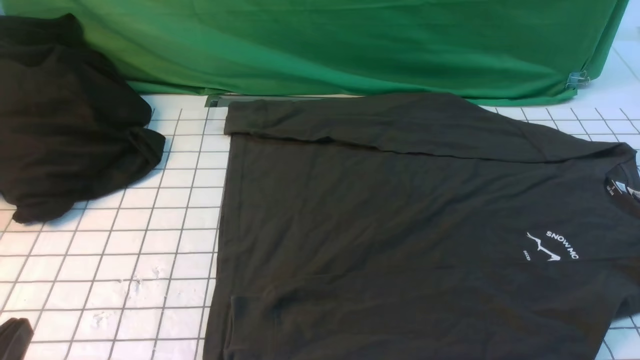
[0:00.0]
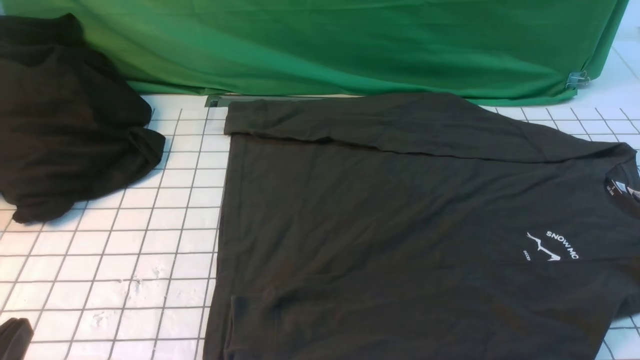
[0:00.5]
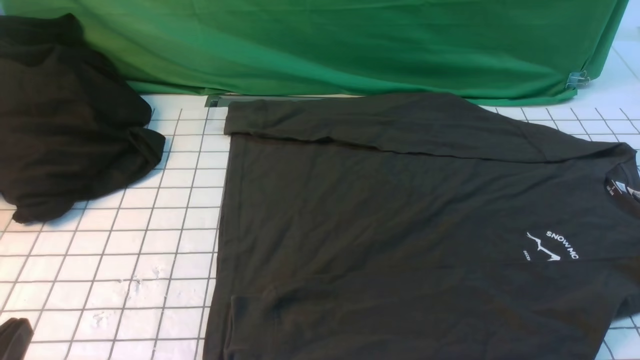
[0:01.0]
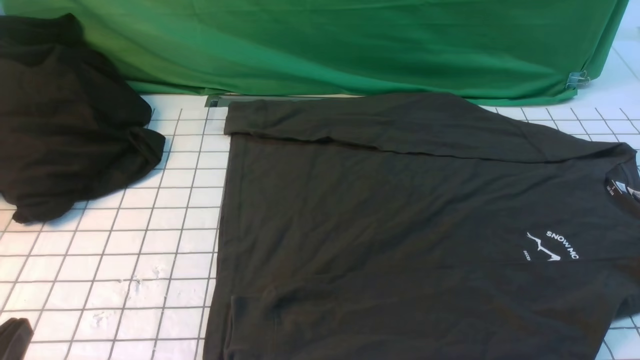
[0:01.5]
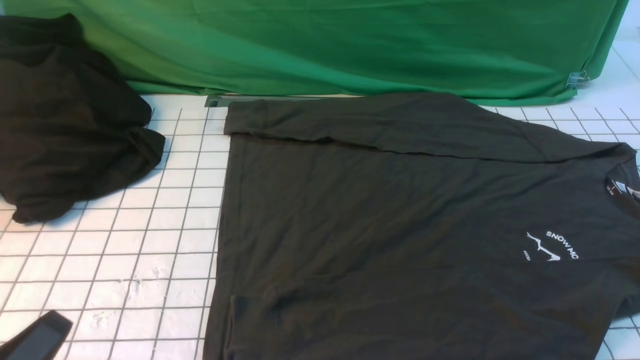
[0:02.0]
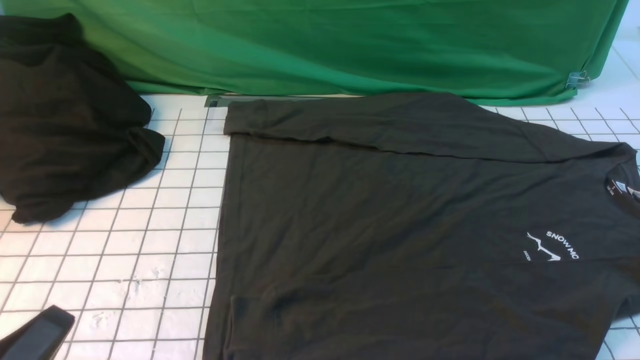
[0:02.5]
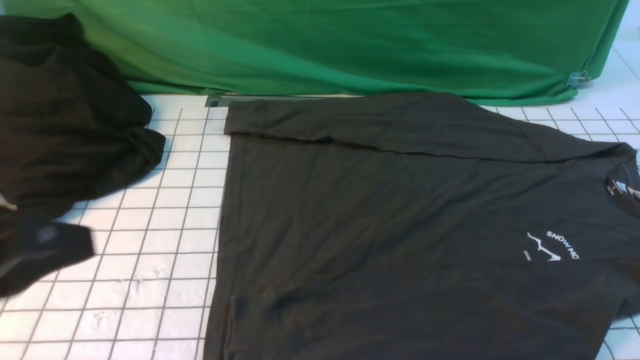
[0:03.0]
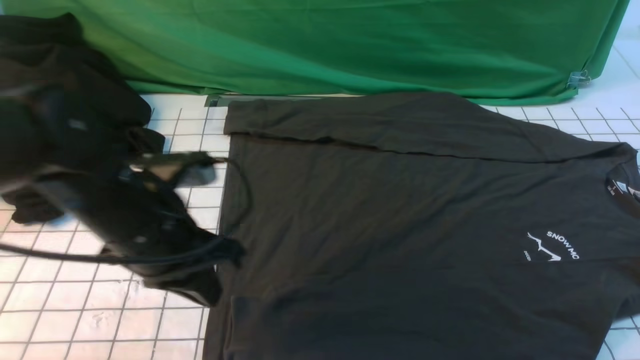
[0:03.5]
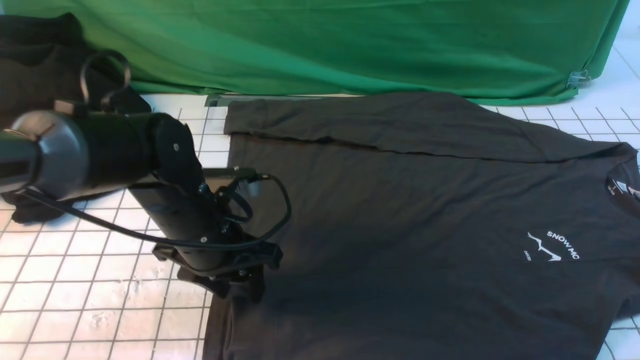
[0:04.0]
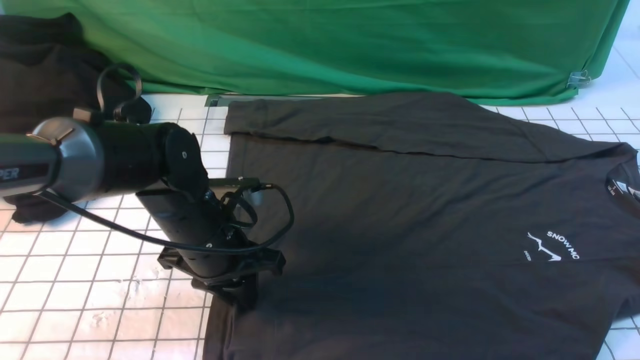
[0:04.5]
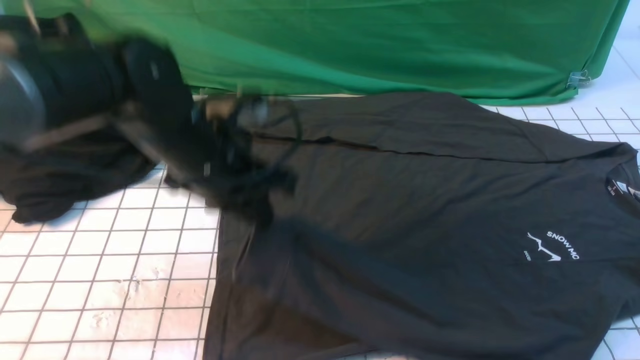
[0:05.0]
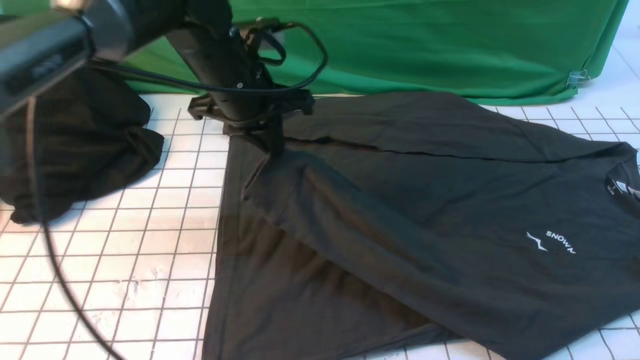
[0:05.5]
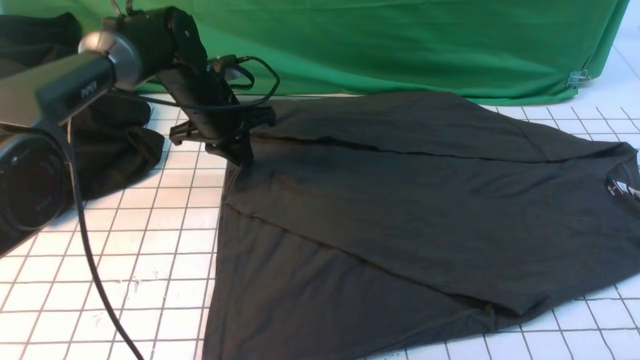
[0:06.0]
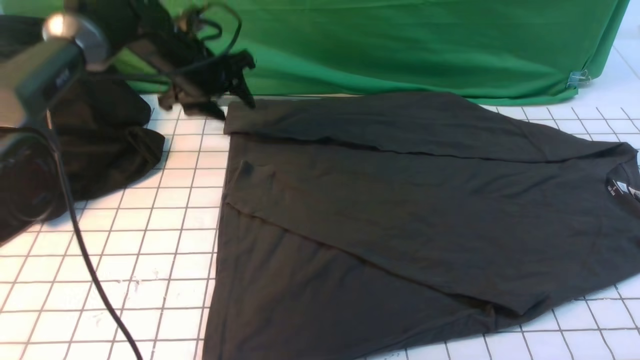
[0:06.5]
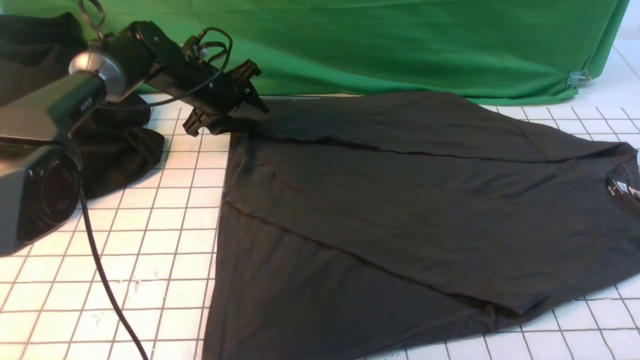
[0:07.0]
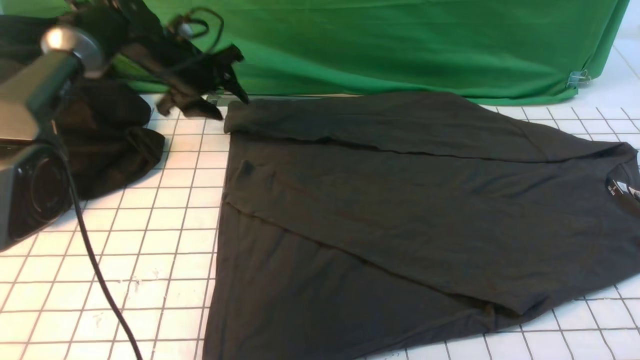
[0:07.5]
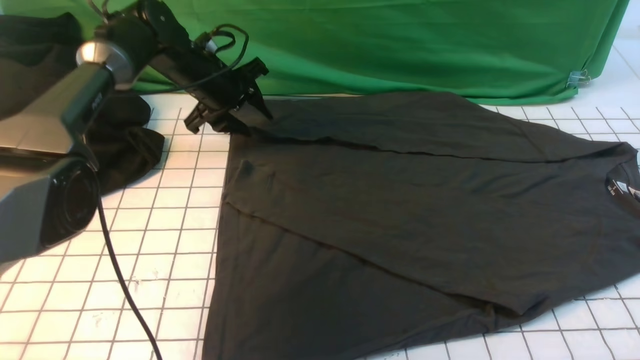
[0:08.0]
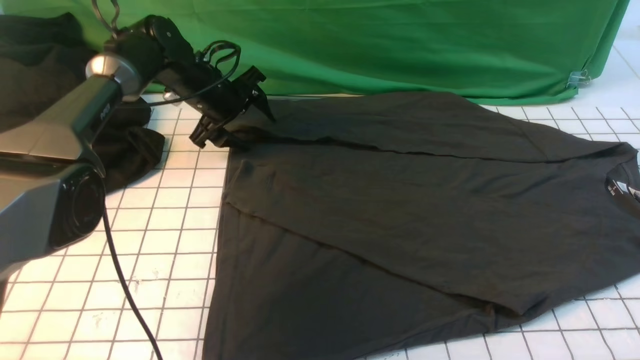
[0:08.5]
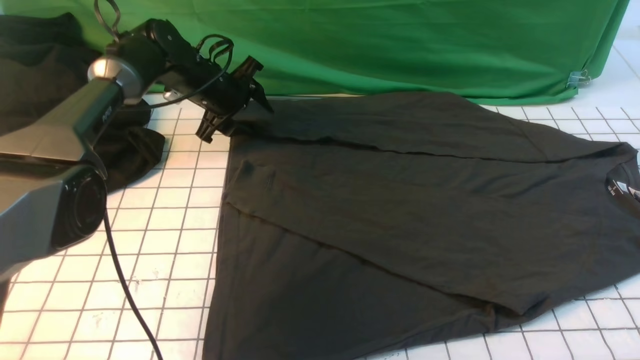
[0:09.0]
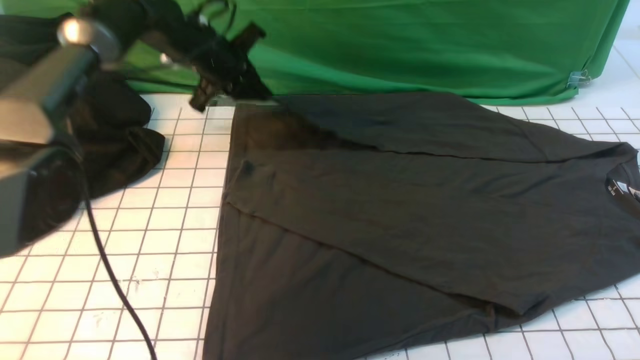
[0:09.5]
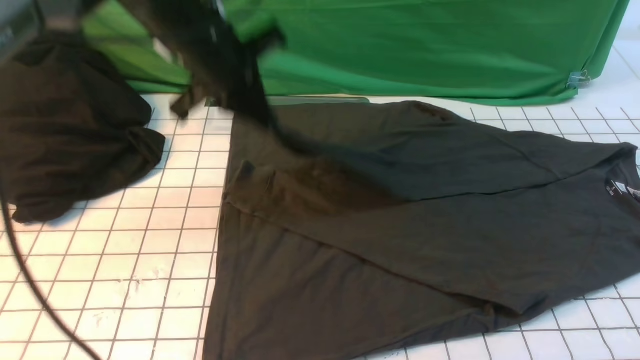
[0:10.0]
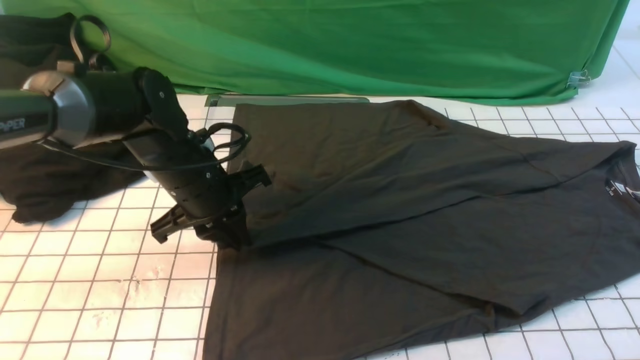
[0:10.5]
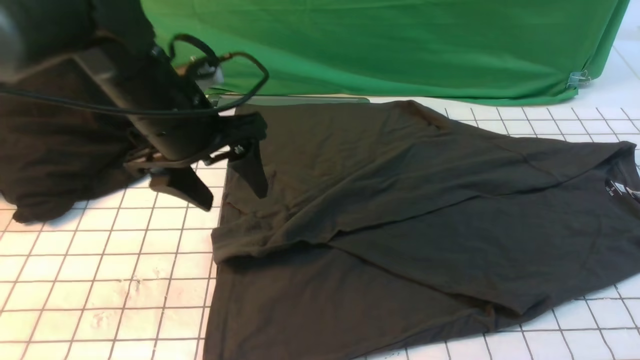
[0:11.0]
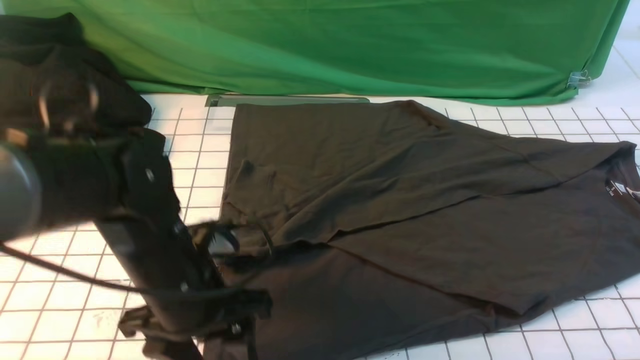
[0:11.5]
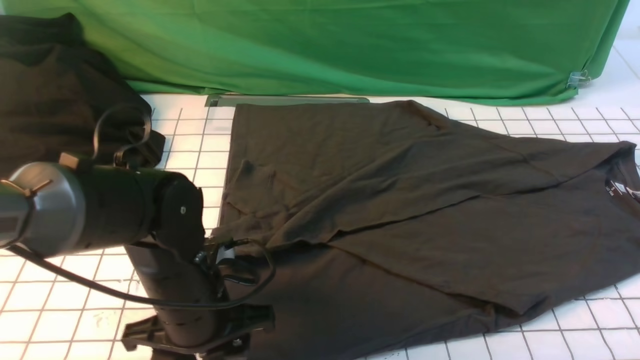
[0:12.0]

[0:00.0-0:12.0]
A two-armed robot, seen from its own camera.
Step, 0:00.0 to 0:04.5: use the left arm to clamp the cuff closest to it.
Step, 0:05.0 to 0:06.0: use the left arm to drag and place the cuff at the centered position on the left edge of the fabric.
Step, 0:06.5 to 0:09.0: use the left arm to clamp the cuff farthest from it.
Step, 0:09.5 to 0:10.5: use the left arm to drag and drop the cuff onto the cuff closest to the left arm.
0:02.0 to 0:04.0: The left gripper is displaced forward and to the right by about 30 cm, and opens its fingers. The right gripper goes roughly 15 cm upward and forward.
0:04.0 to 0:06.0: The left gripper heads forward, covering approximately 20 cm, and closes.
0:06.0 to 0:08.0: The left gripper is displaced forward by some 5 cm, and opens.
0:08.0 to 0:10.0: The left gripper goes about 15 cm backward and upward, and closes its fingers.
0:10.0 to 0:12.0: The left gripper moves backward and downward, approximately 20 cm, and opens up.

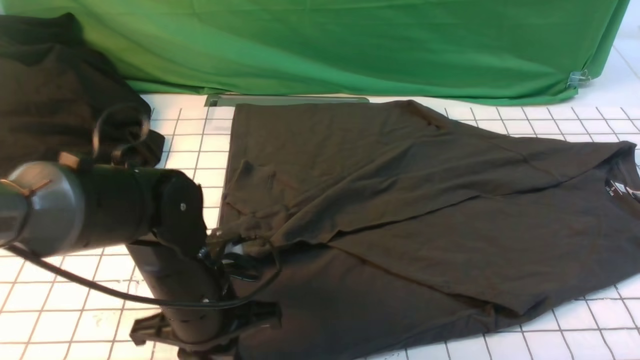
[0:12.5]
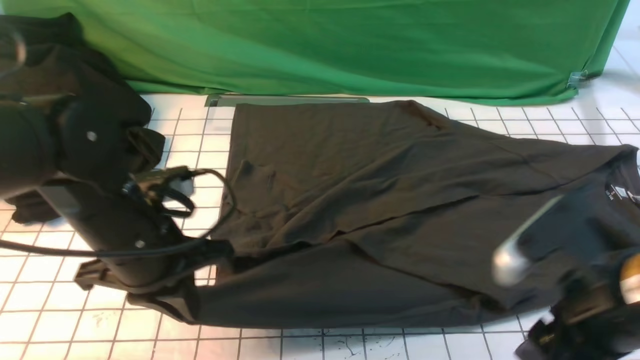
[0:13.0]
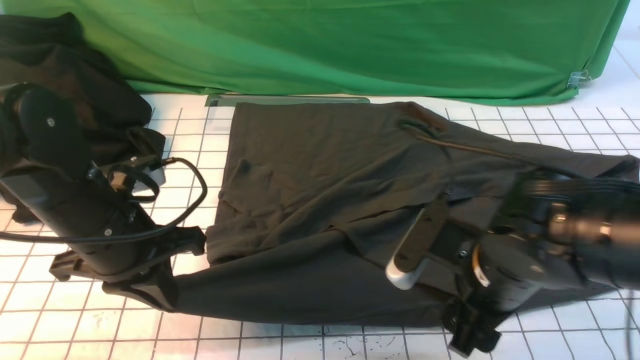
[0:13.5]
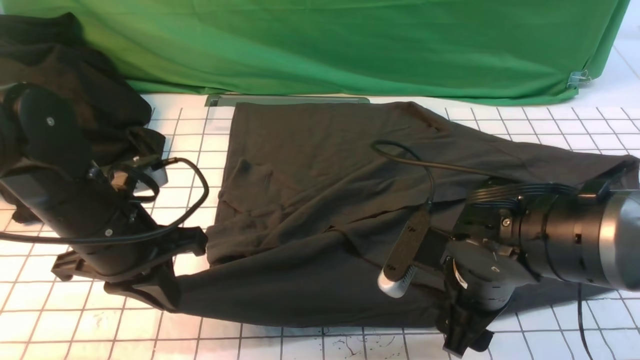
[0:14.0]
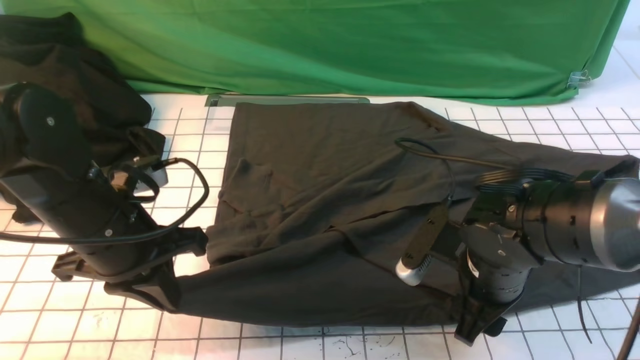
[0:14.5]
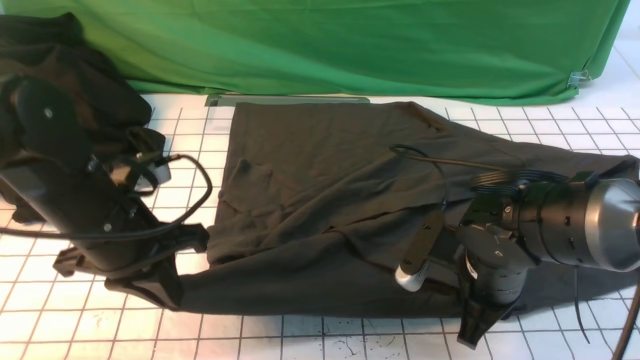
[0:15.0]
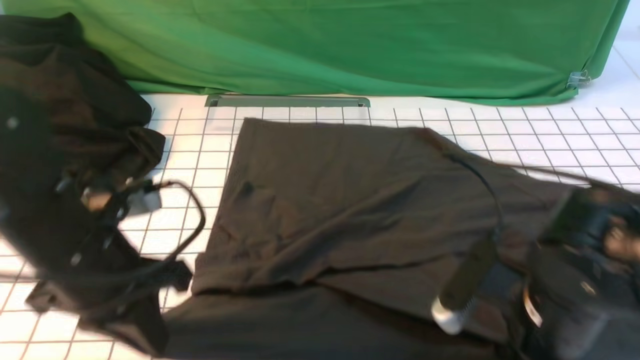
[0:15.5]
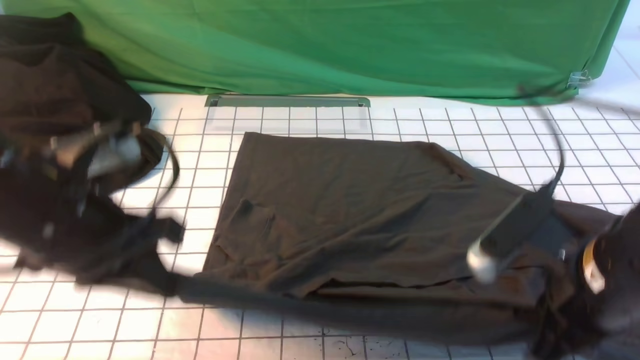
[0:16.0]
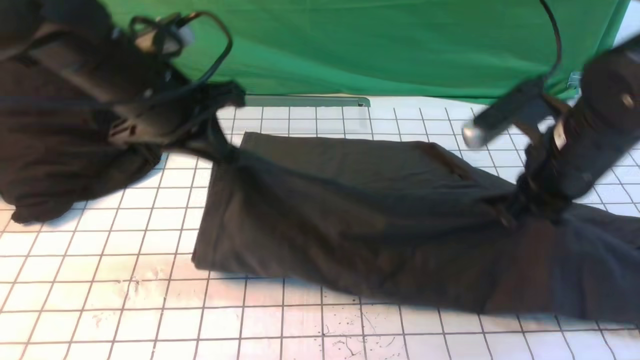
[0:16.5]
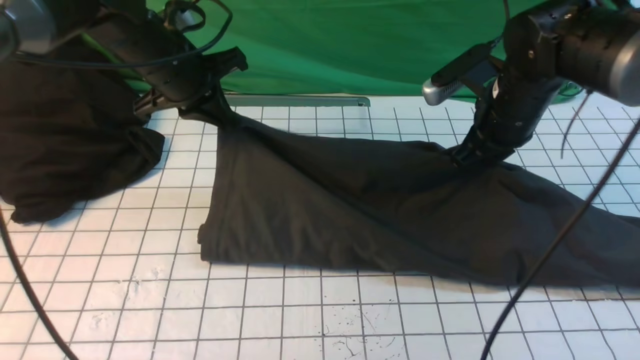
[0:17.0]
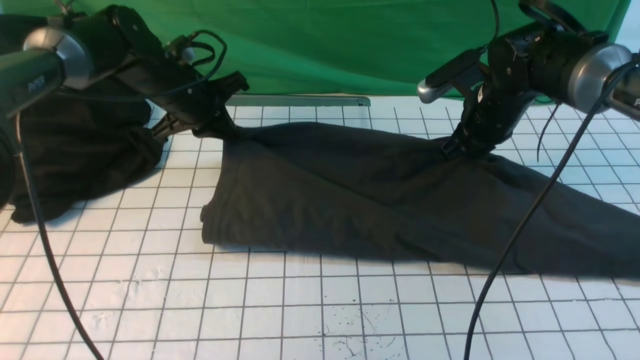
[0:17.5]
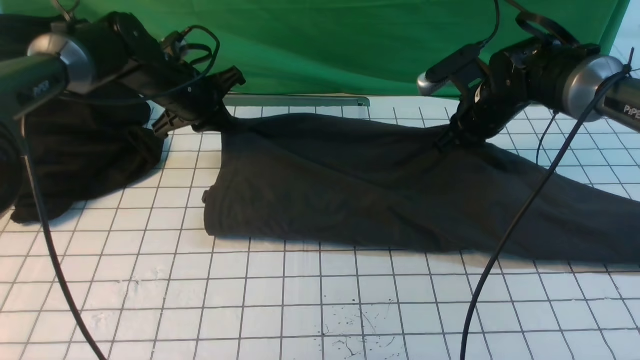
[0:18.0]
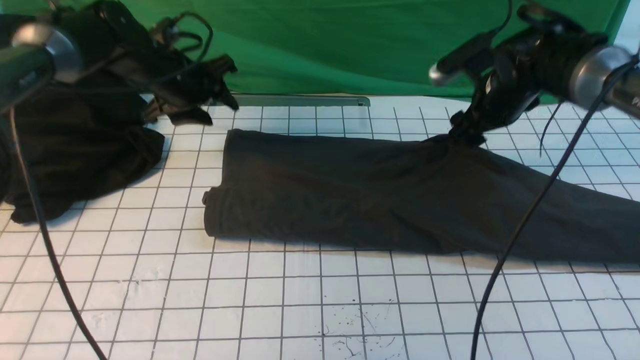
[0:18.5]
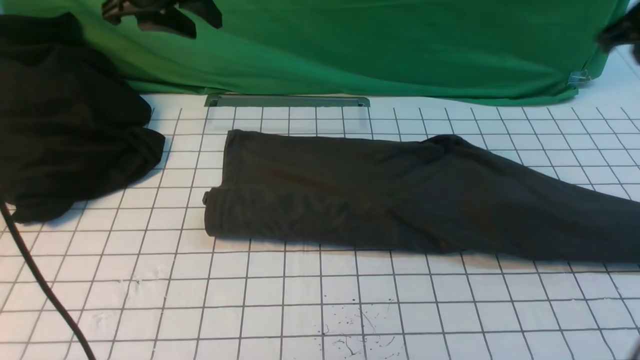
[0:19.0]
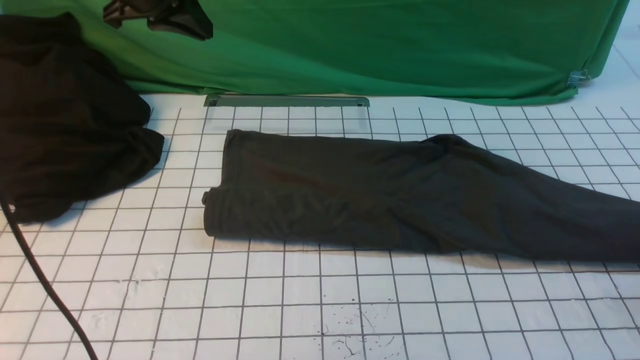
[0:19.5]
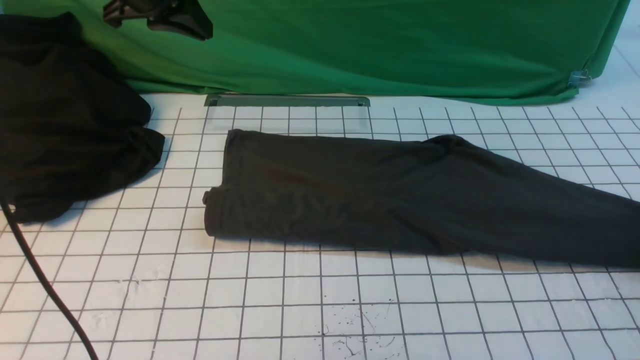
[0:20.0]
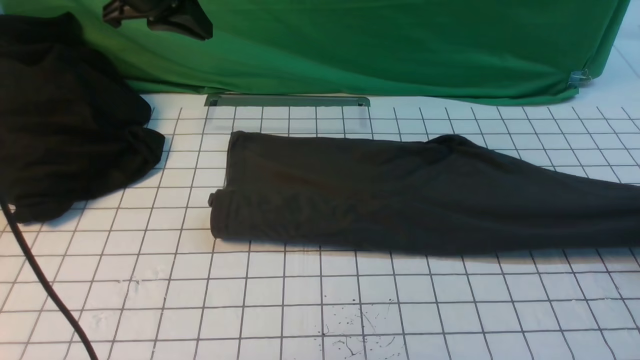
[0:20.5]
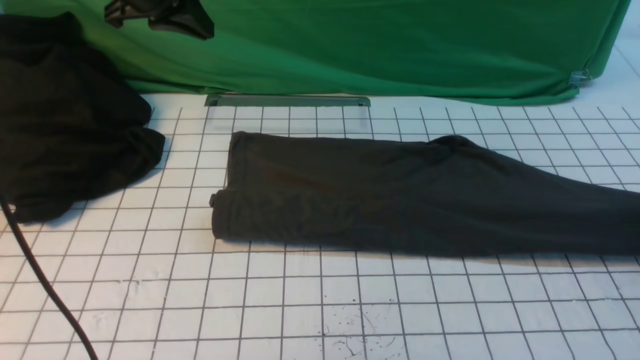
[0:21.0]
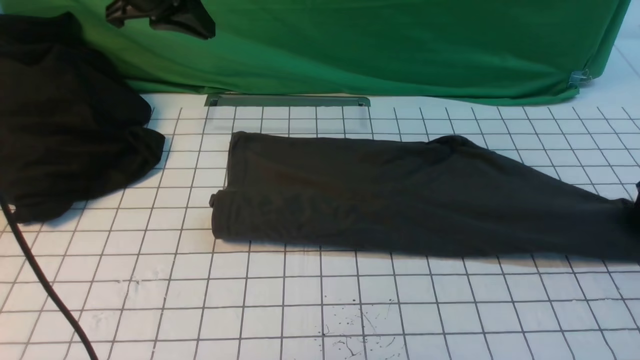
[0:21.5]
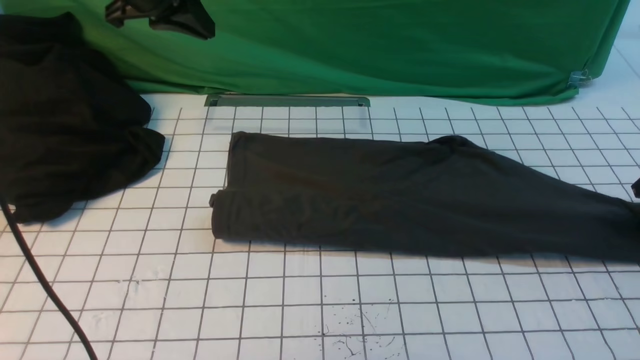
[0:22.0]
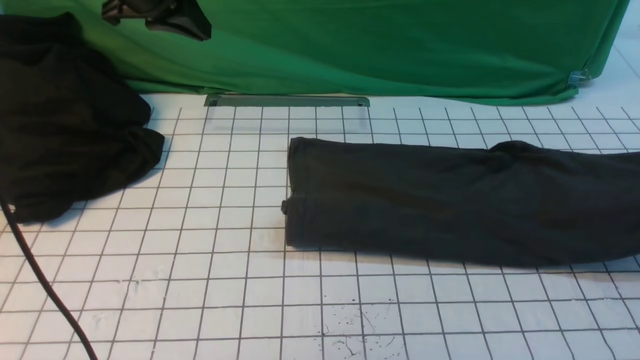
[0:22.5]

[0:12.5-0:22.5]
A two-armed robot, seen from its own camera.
Step, 0:12.5 to 0:15.0: use both arms simultaneously to clamp the lower edge of the clothing fabric.
Step, 0:15.5 to 0:18.5: use both arms to drag the lower edge of the fabric forward and fold it over the upper edge.
Step, 0:19.0 to 0:22.0: use the right arm to clamp the right edge of the fabric.
0:12.5 to 0:14.5: The right gripper goes some 25 cm downward, to the left and forward, and opens its fingers. Meanwhile the left gripper moves to the left, approximately 5 cm.
0:14.5 to 0:16.5: The right gripper goes about 10 cm upward, and closes; the left gripper travels forward and upward by approximately 10 cm.
0:16.5 to 0:18.5: The left gripper moves forward and downward, approximately 15 cm, and opens its fingers. The right gripper heads forward, covering roughly 15 cm, and opens its fingers.
0:18.5 to 0:20.5: The left gripper is displaced upward by some 10 cm, and closes up. Meanwhile the right gripper is displaced to the right by approximately 30 cm, and closes up.
0:20.5 to 0:22.5: The right gripper heads upward, covering about 10 cm, and opens and closes again.
